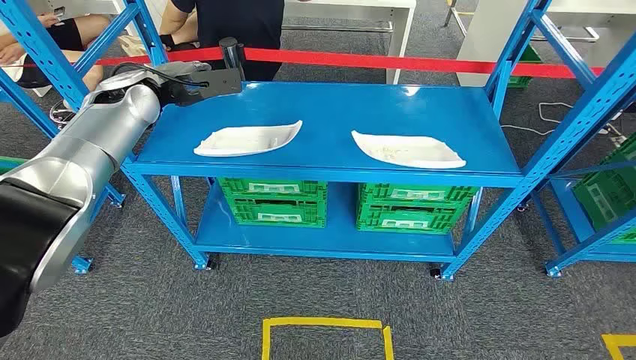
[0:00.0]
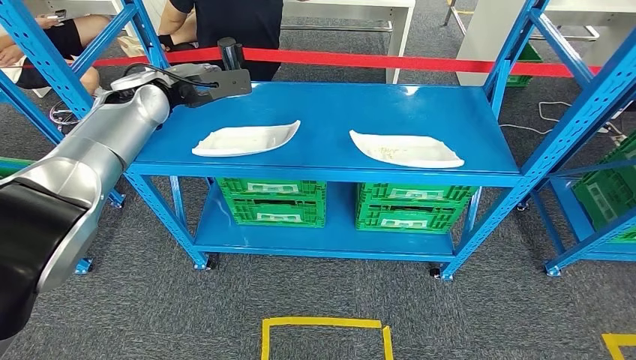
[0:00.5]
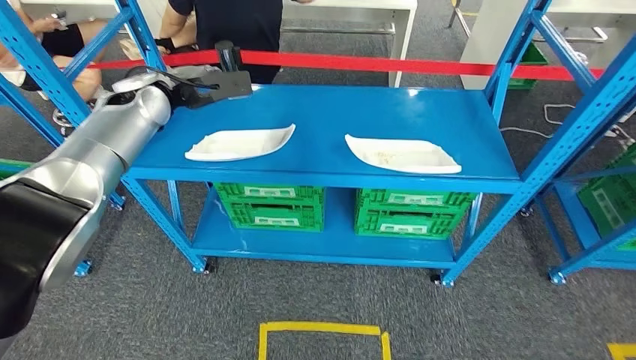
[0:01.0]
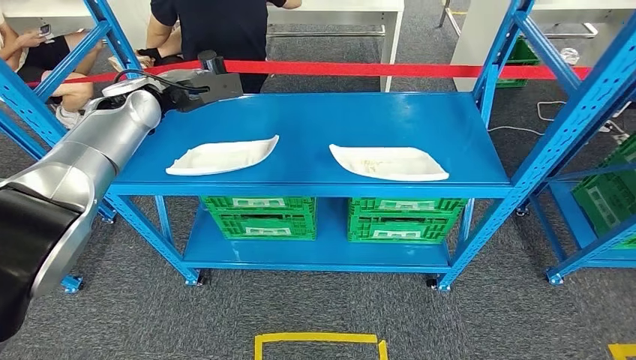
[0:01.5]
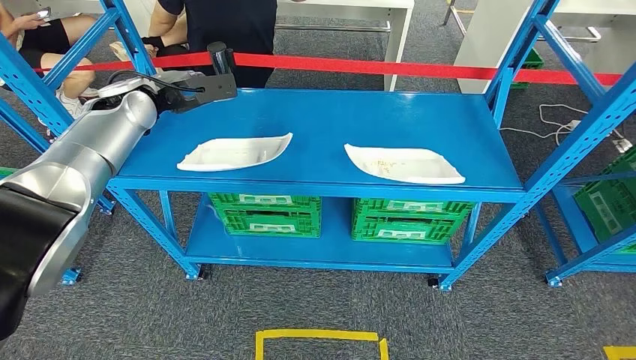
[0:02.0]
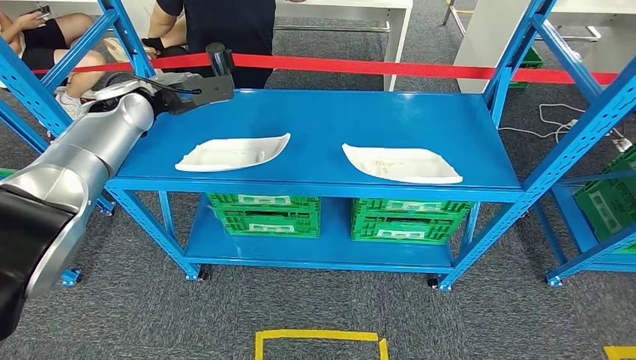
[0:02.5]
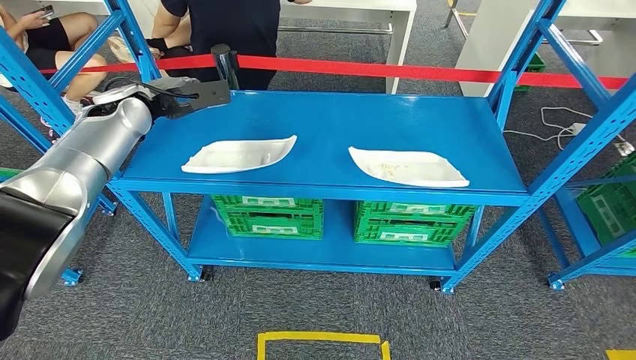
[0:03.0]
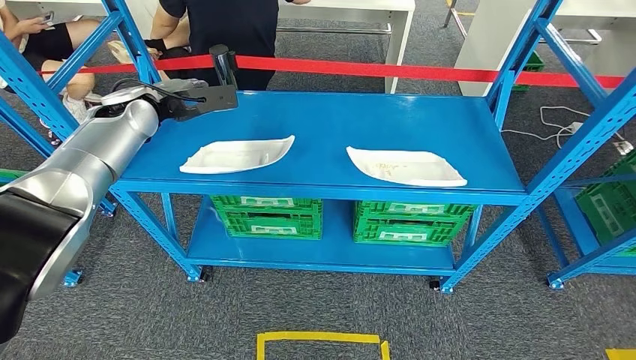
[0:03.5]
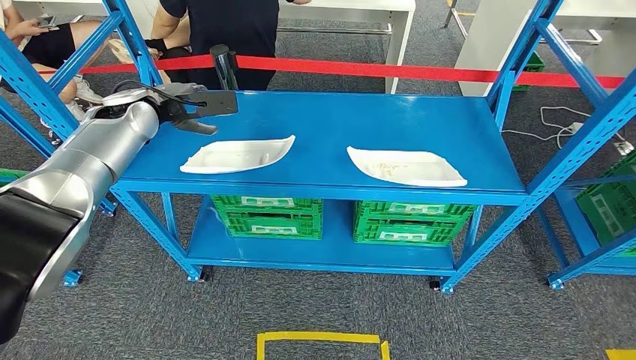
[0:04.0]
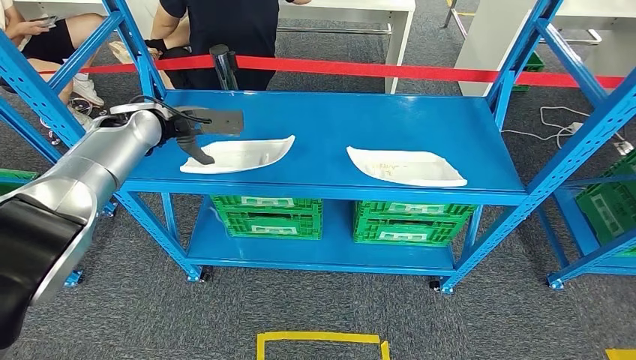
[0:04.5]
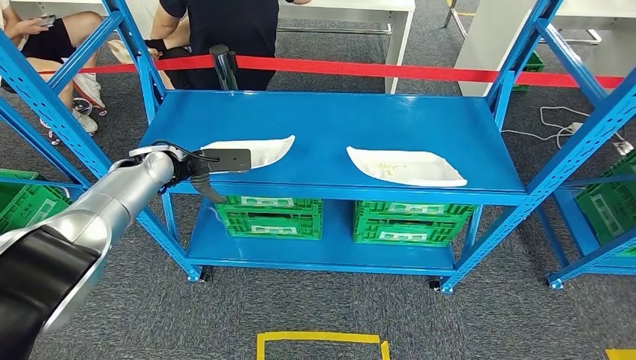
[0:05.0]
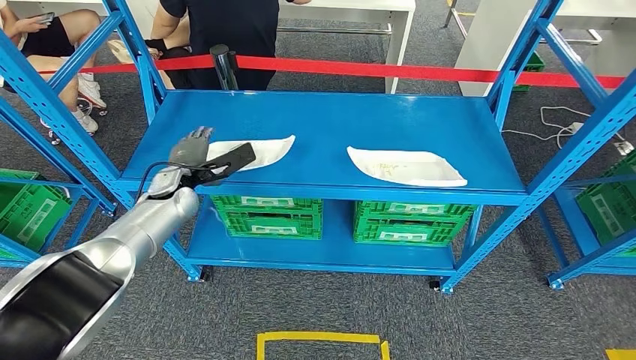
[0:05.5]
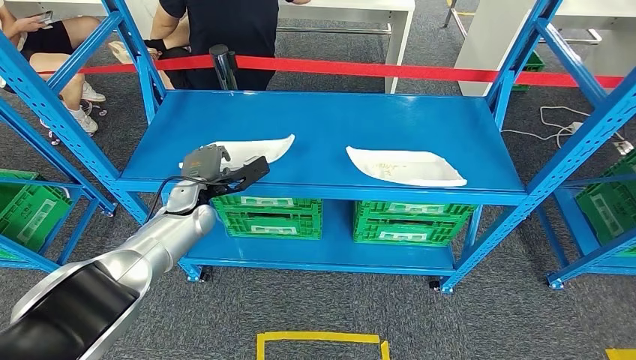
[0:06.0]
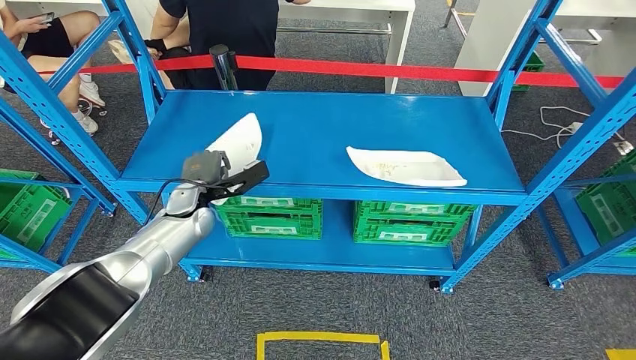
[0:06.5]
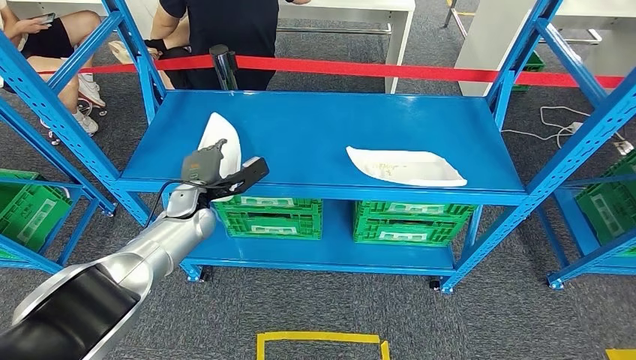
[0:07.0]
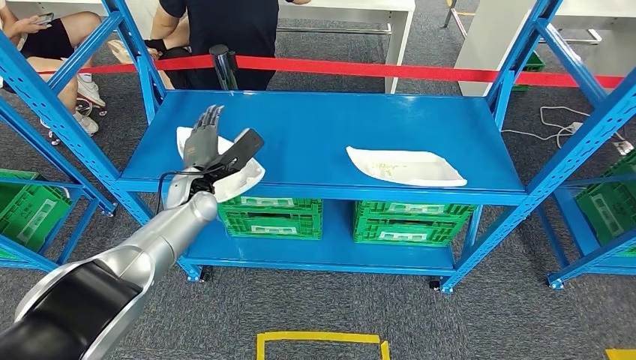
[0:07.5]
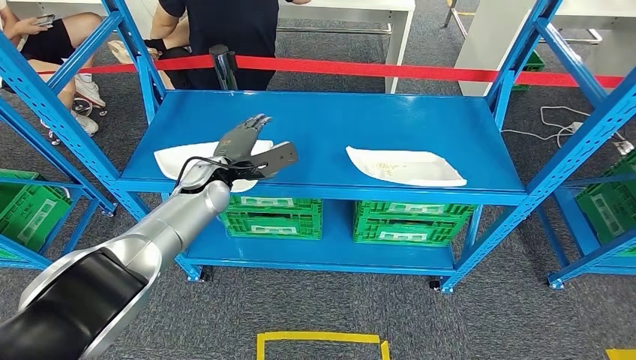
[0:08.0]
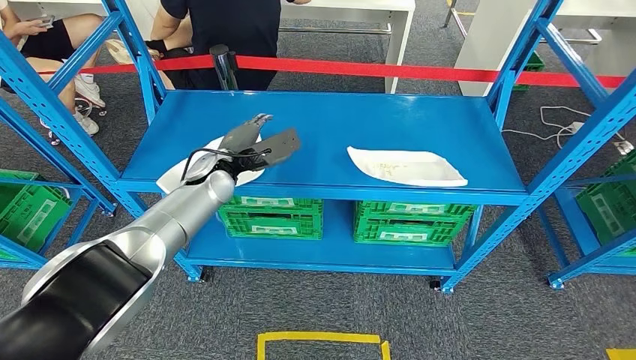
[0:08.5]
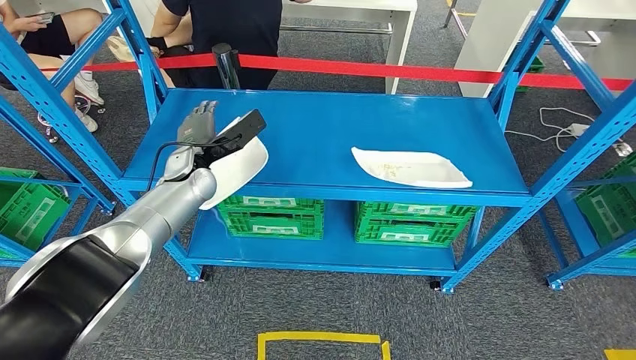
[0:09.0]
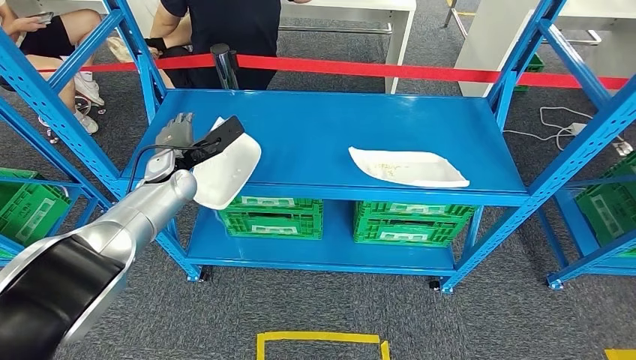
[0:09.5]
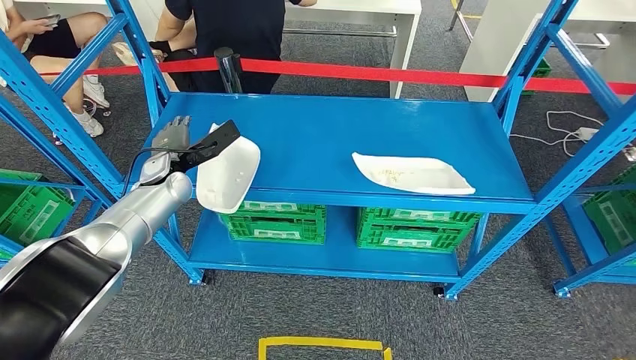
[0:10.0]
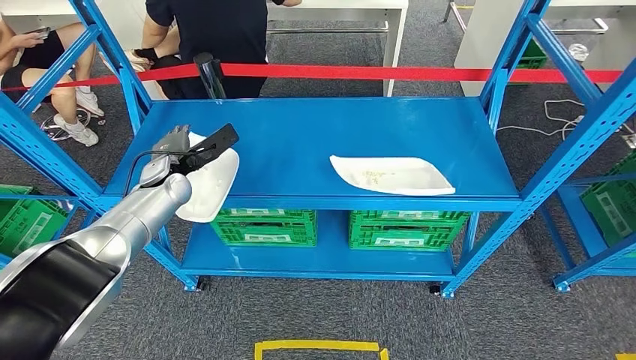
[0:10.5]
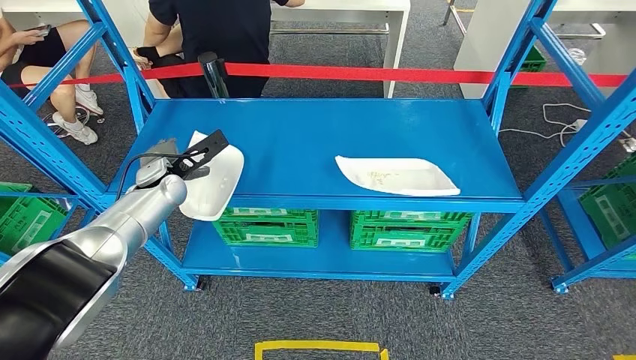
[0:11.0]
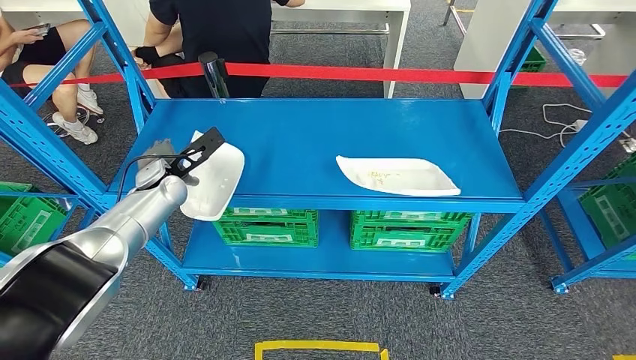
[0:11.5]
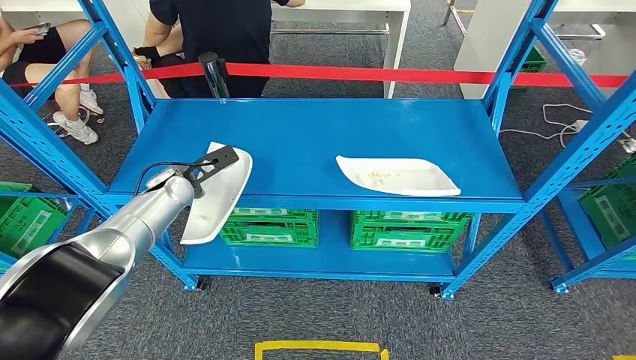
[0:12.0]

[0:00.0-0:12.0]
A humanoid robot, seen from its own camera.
0:02.0 to 0:04.0: The hands make only small movements.
0:04.0 to 0:06.0: The left hand travels downward and to the right by roughly 20 cm.
0:06.0 to 0:08.0: The left hand shifts by some 5 cm.

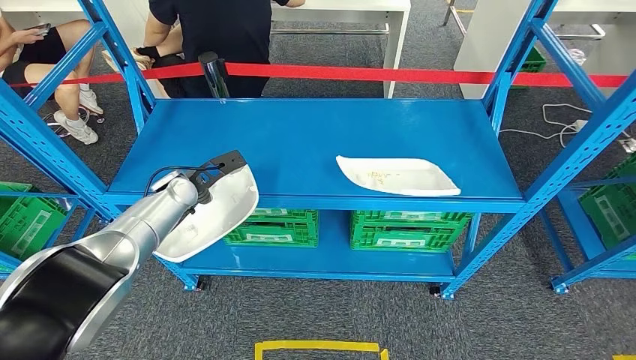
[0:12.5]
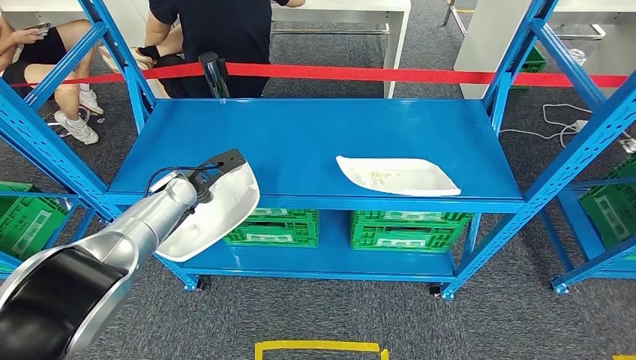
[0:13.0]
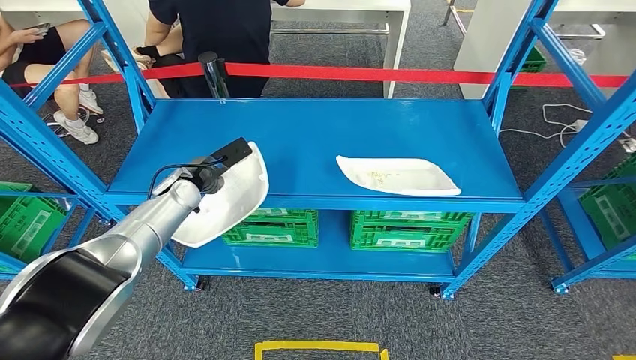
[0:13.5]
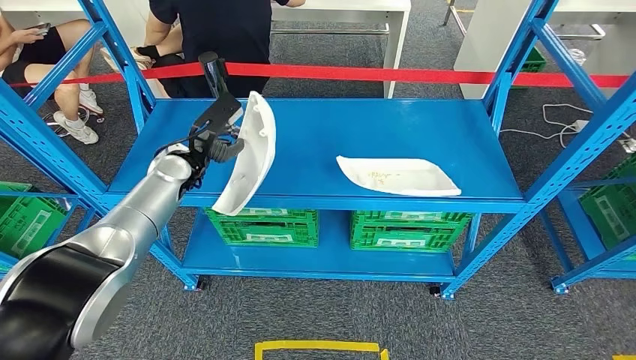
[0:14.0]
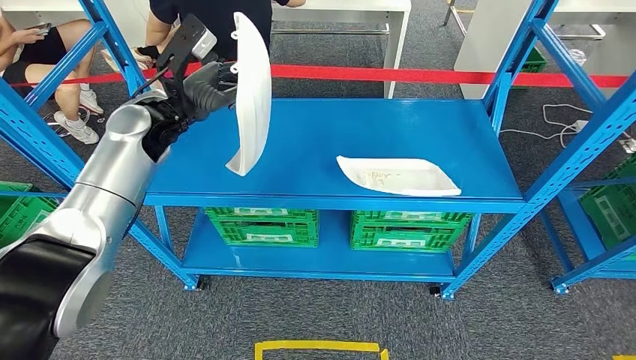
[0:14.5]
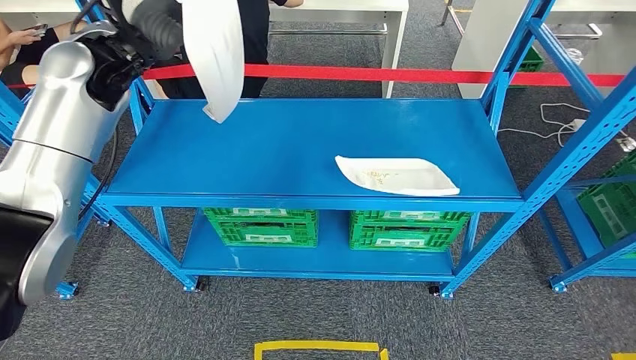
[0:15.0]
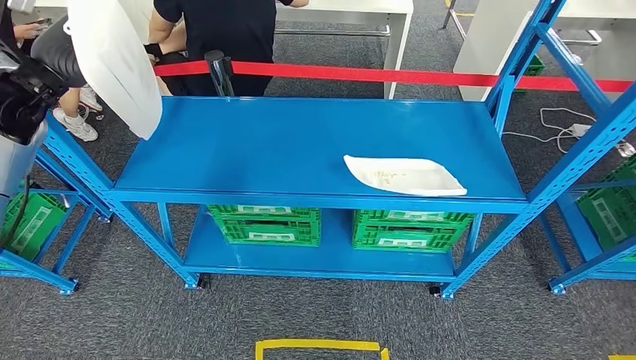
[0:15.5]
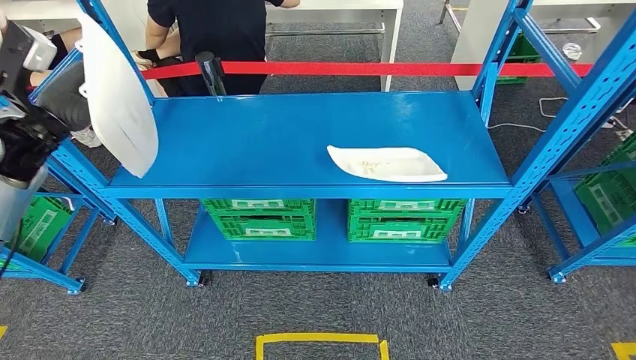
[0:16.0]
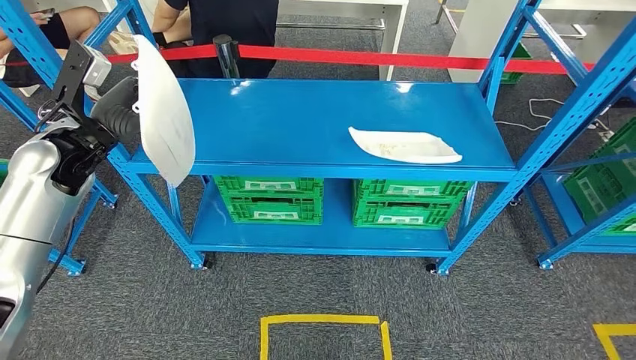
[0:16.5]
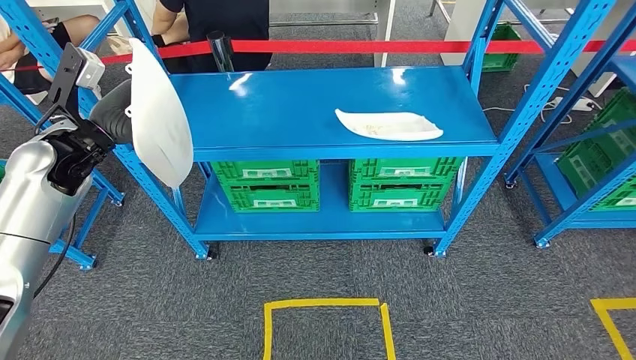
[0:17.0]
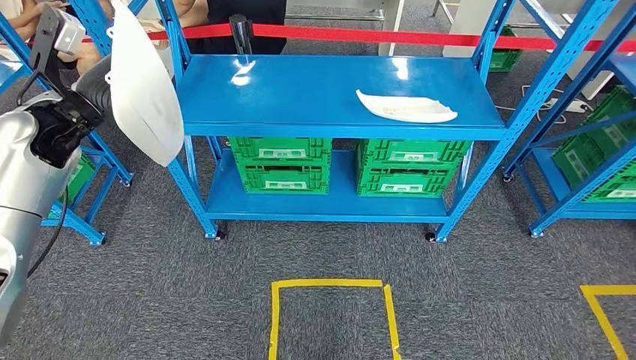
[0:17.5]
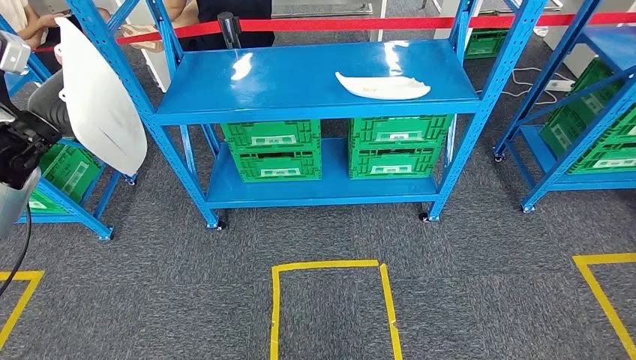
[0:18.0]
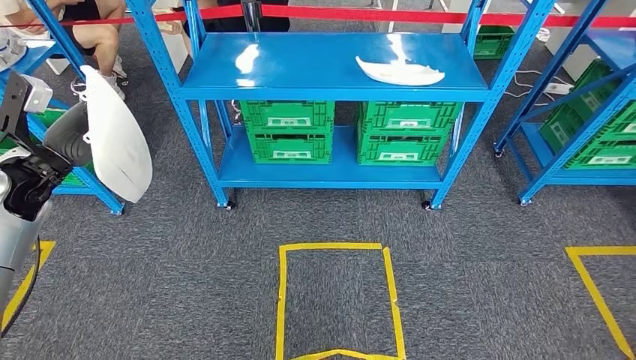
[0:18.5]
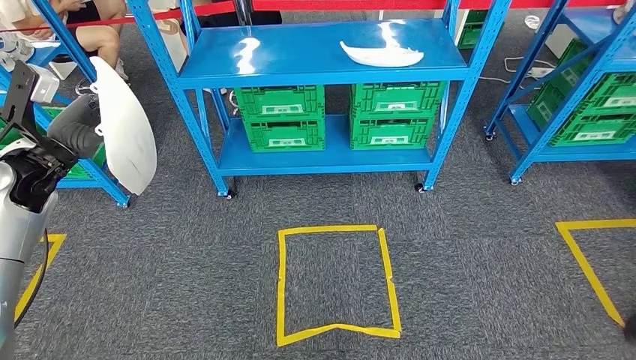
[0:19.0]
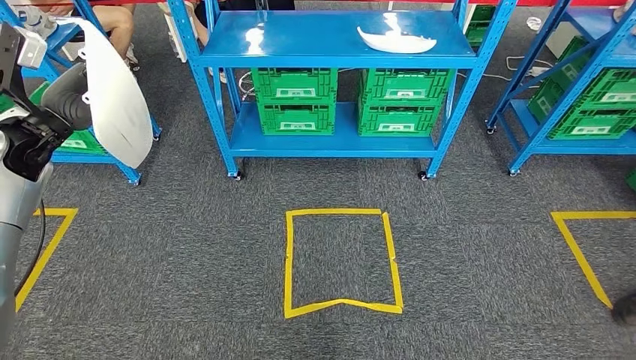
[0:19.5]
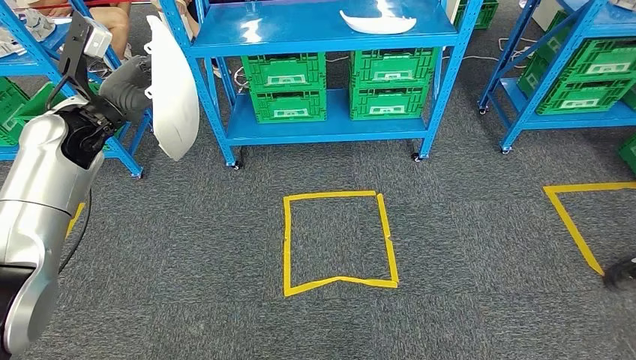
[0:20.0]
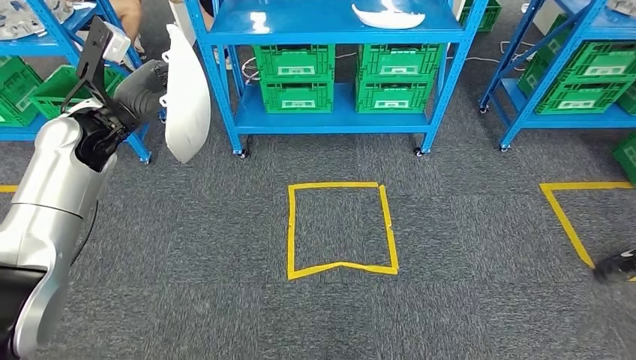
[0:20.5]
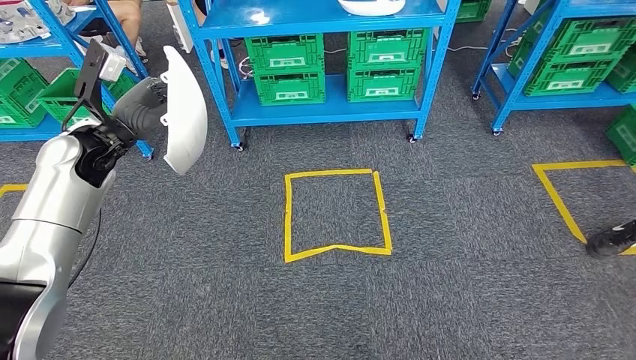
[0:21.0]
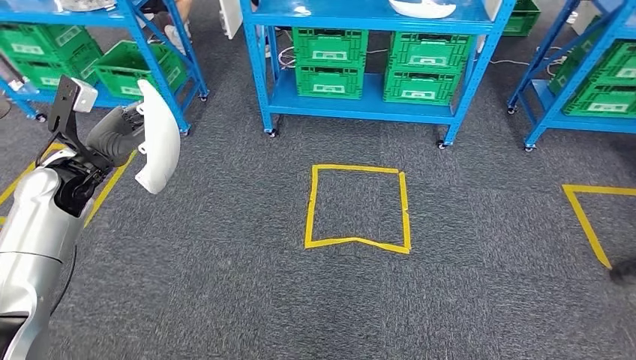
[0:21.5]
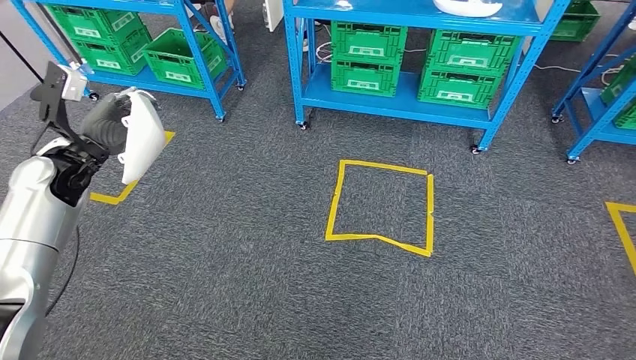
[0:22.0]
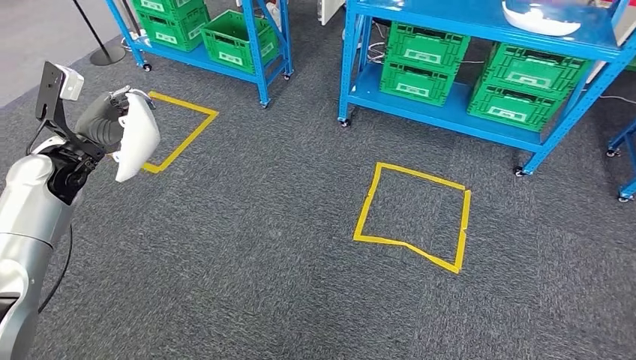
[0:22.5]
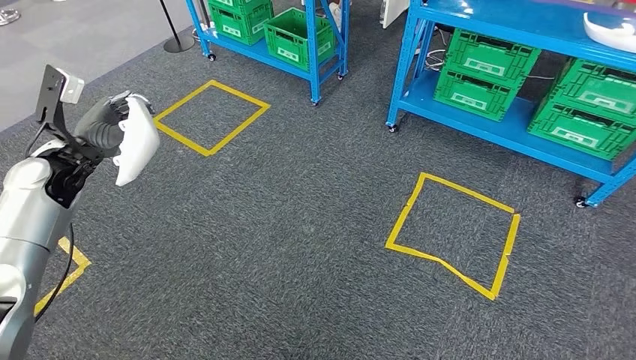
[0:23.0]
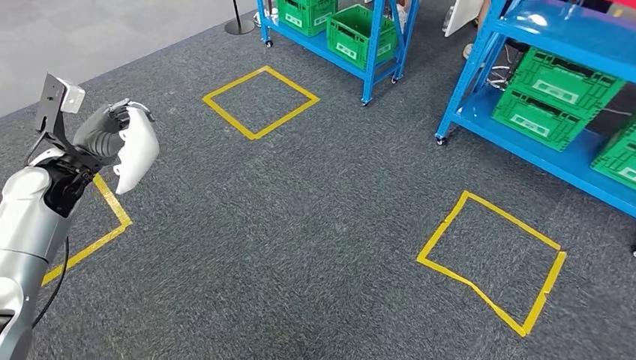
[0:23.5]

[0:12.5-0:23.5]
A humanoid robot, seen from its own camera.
0:12.5 to 0:14.5: The left hand goes about 15 cm upward.
